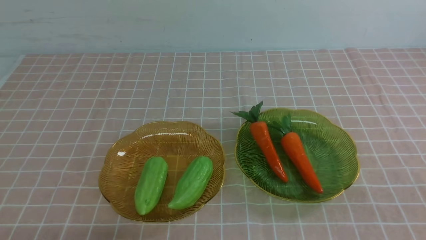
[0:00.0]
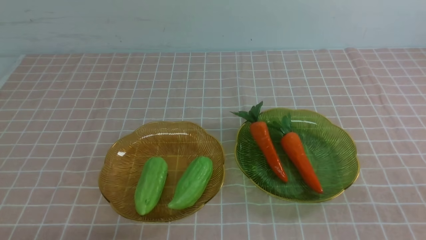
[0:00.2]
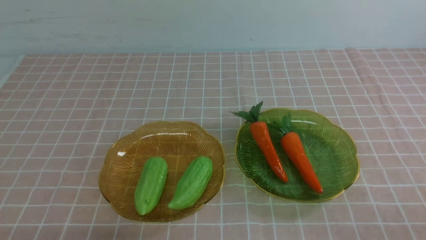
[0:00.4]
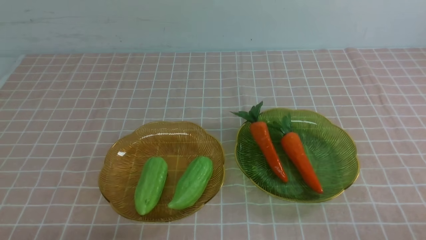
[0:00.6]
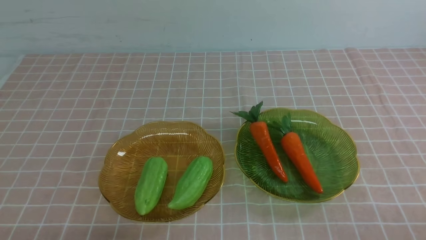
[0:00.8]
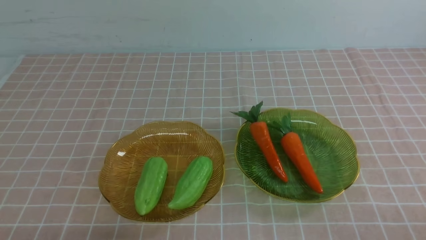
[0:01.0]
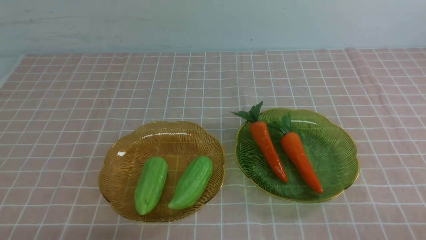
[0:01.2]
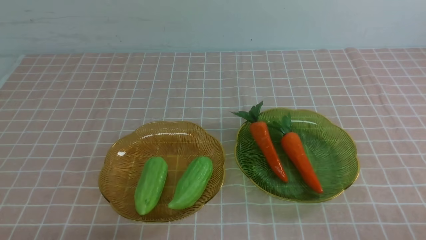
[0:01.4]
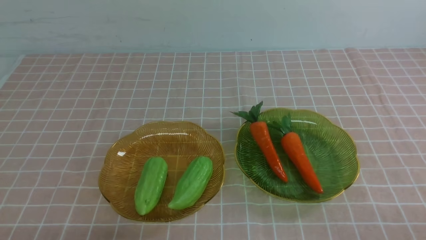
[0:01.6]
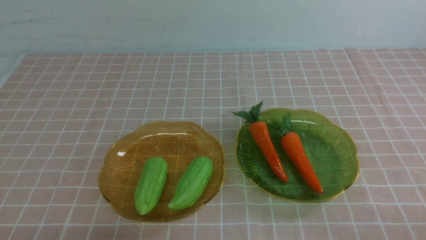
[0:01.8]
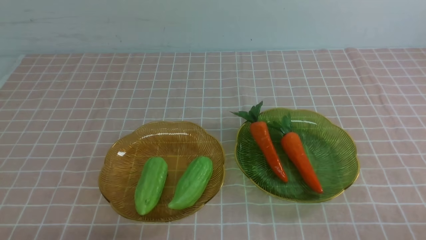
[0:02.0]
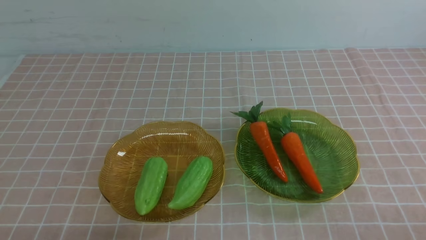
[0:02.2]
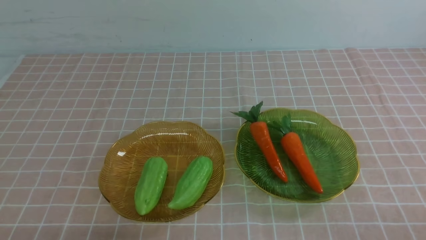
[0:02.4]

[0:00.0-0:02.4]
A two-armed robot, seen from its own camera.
0:01.2 to 0:02.4: Both grippers stay about where they are.
